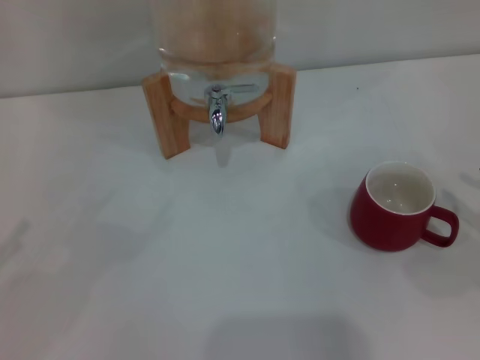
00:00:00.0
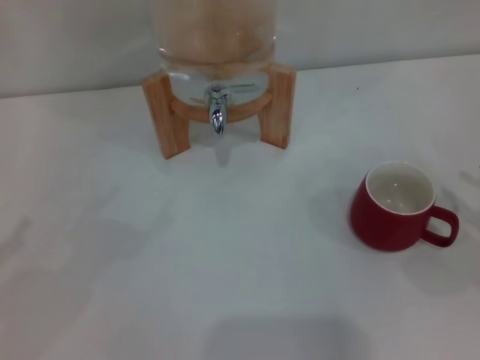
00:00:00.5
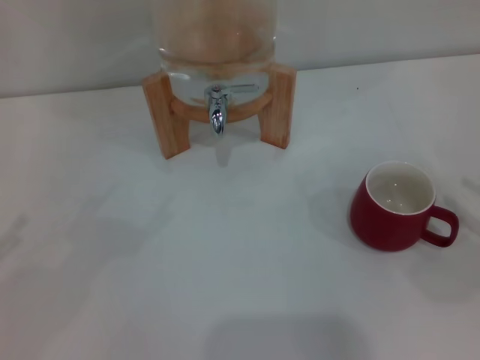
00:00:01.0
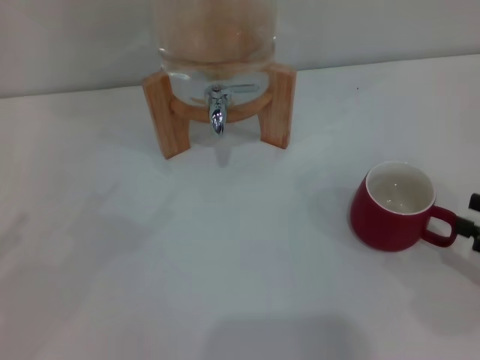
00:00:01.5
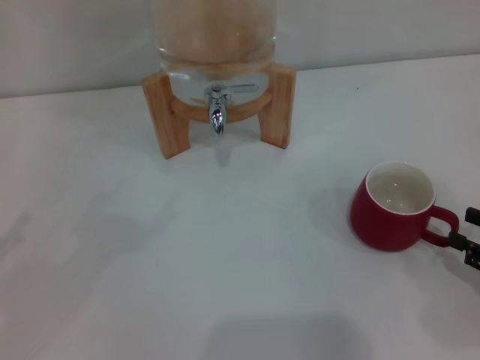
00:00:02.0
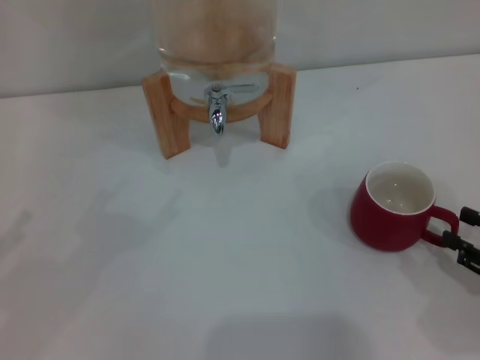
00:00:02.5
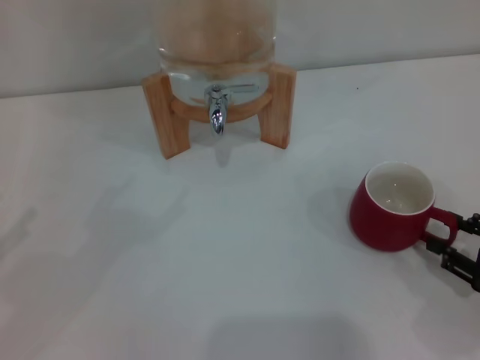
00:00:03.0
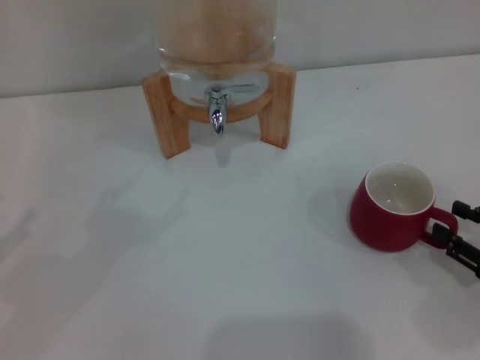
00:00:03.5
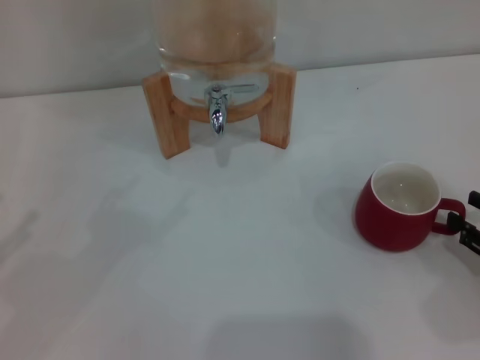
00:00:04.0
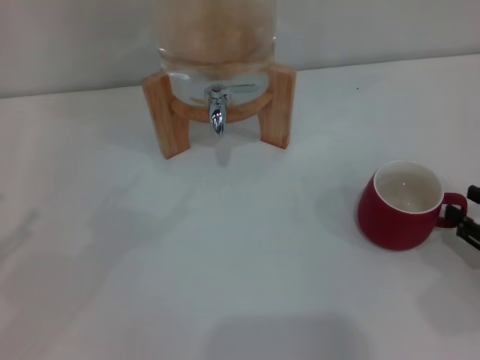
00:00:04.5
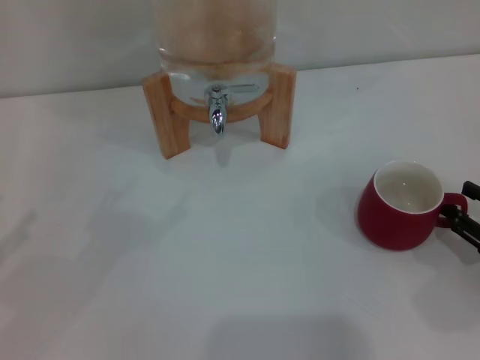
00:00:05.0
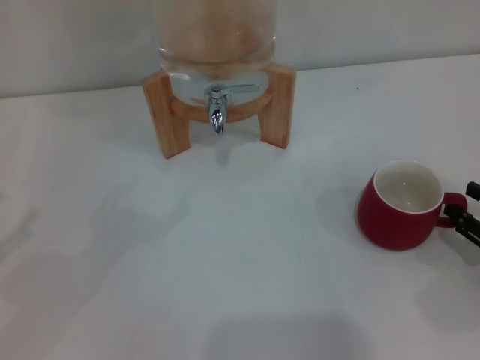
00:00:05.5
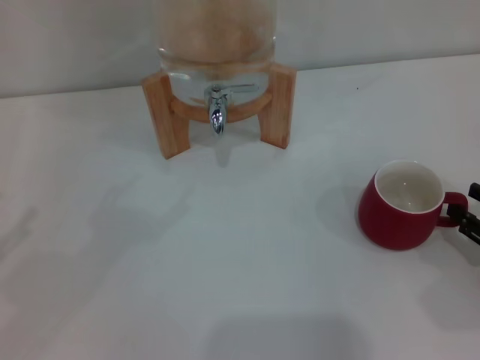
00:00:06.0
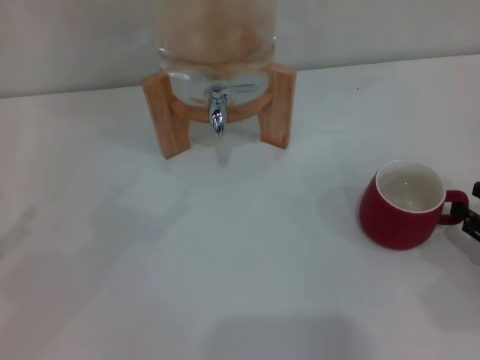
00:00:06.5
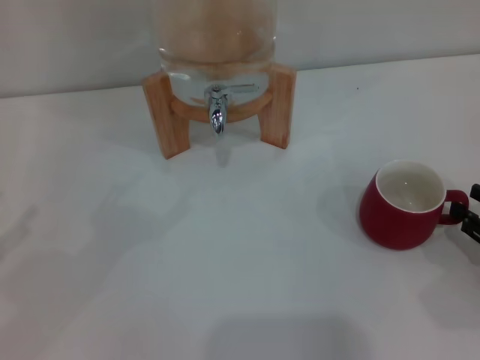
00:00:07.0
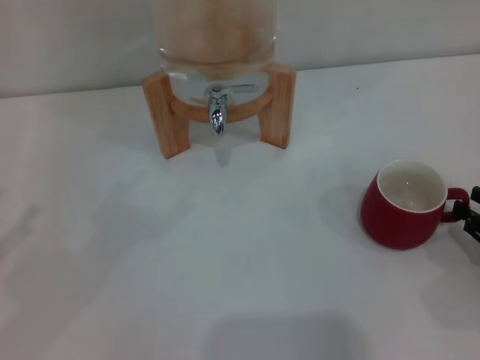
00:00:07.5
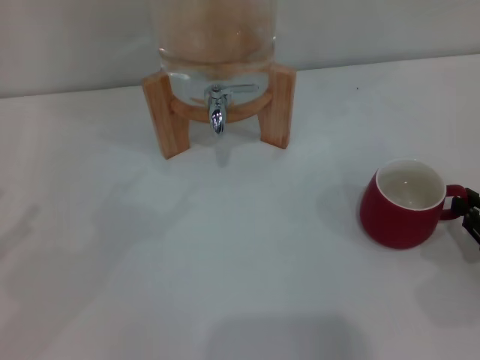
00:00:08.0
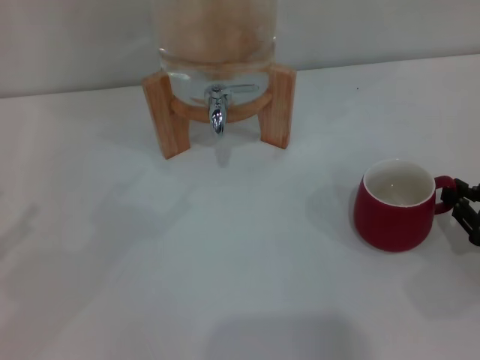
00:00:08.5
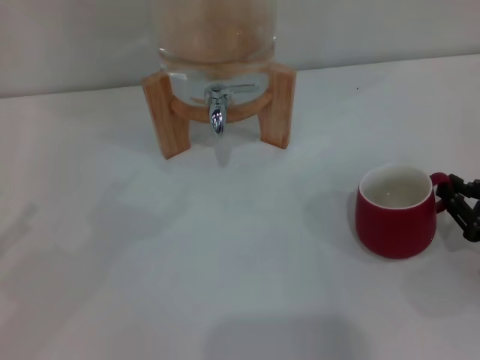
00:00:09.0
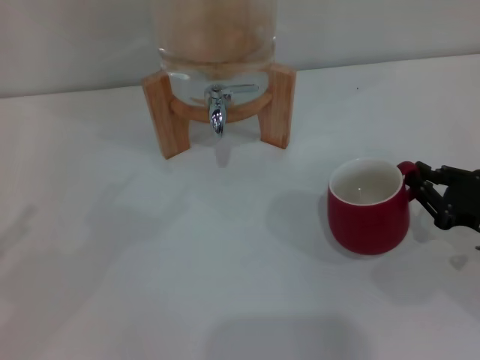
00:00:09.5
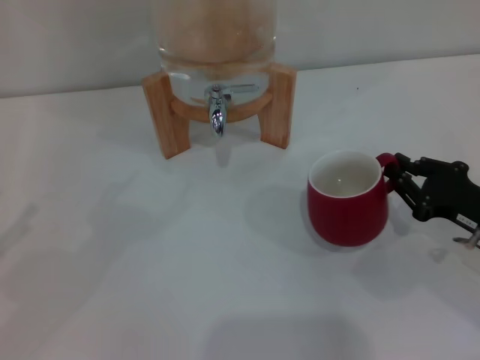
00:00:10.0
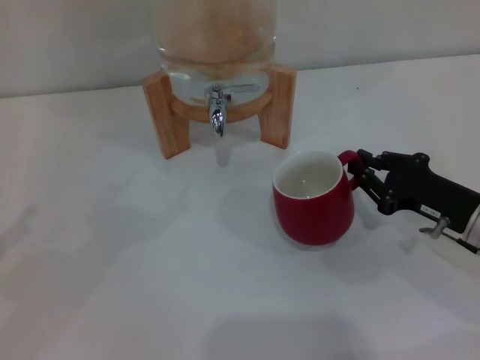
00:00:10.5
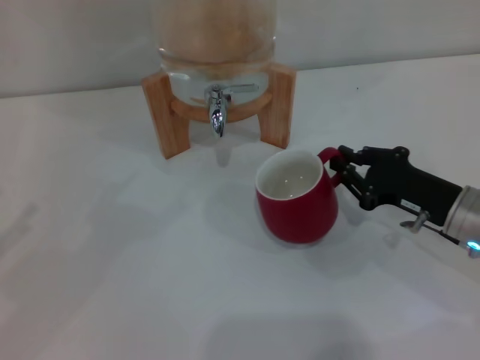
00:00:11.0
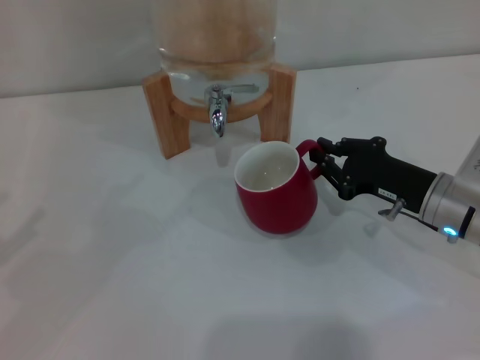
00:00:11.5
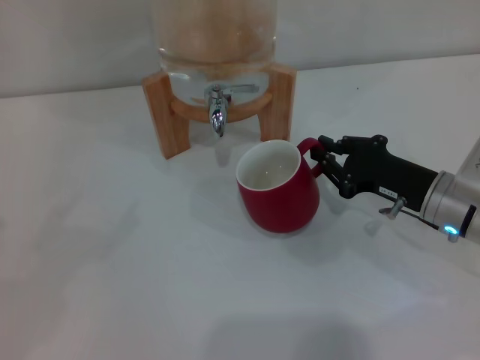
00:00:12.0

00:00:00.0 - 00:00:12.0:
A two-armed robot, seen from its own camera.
Task of the whole recording: the right gripper pick up the red cup and place it horizontally under the faucet, the left gripper turn on the faucet to fill the cup, and then turn off the faucet.
00:00:00.0 - 00:00:02.0: The right gripper is displaced downward by about 5 cm.
00:00:02.0 - 00:00:04.0: The grippers make only small movements.
00:00:04.0 - 00:00:06.0: Neither gripper changes place.
00:00:06.0 - 00:00:08.0: The right gripper closes its fingers.
00:00:08.0 - 00:00:10.0: The right gripper is displaced to the left and forward by some 10 cm.
00:00:10.0 - 00:00:12.0: The right gripper moves to the left and forward, approximately 10 cm.

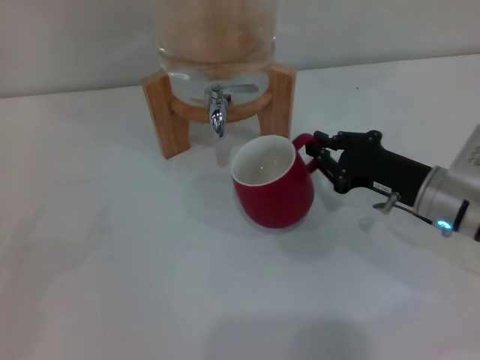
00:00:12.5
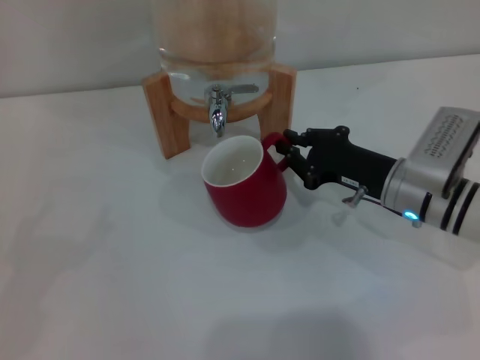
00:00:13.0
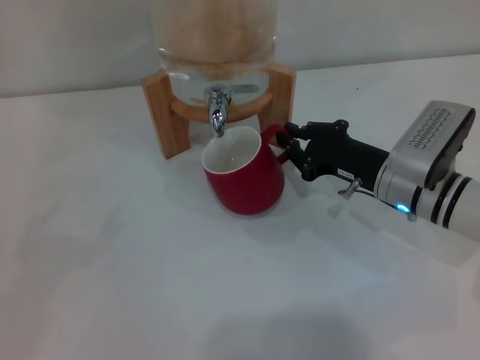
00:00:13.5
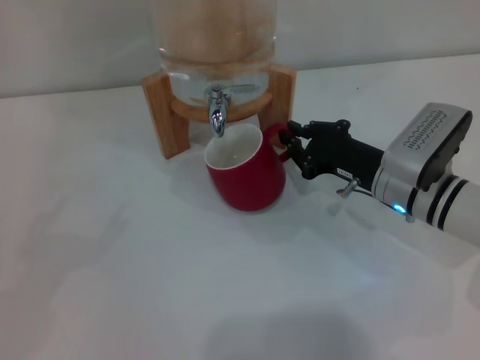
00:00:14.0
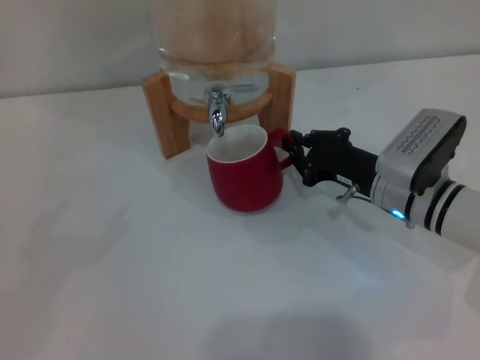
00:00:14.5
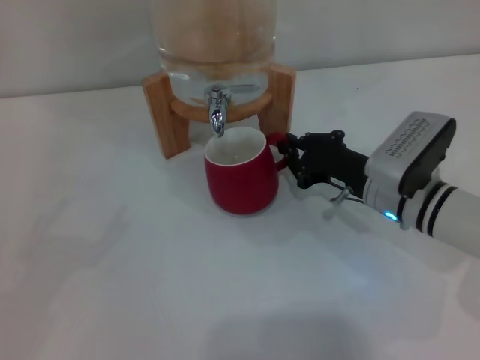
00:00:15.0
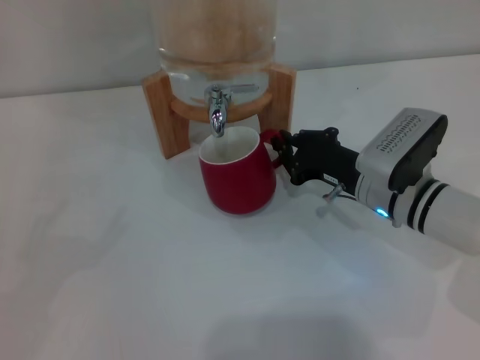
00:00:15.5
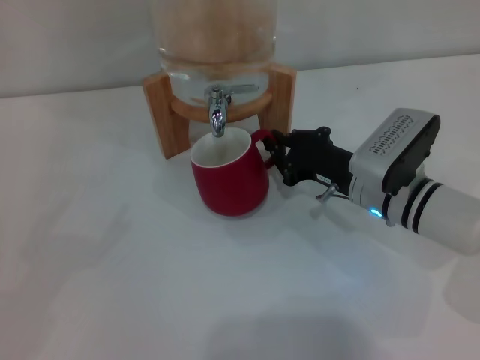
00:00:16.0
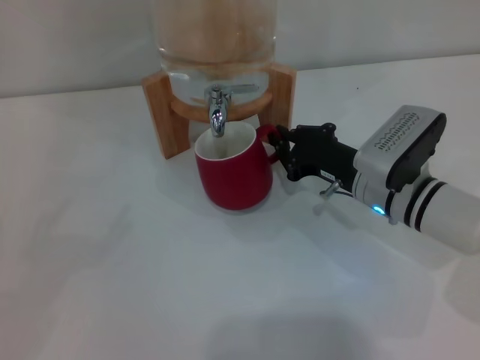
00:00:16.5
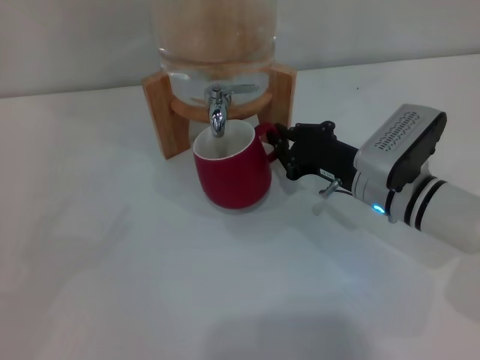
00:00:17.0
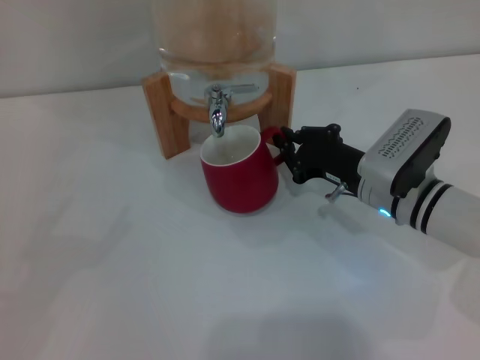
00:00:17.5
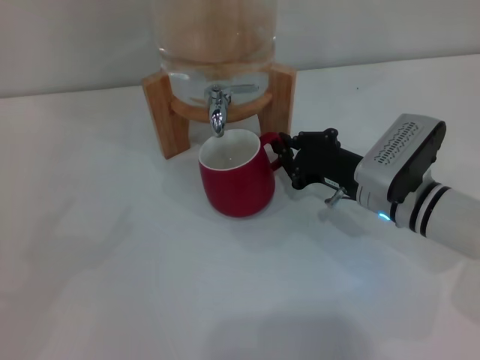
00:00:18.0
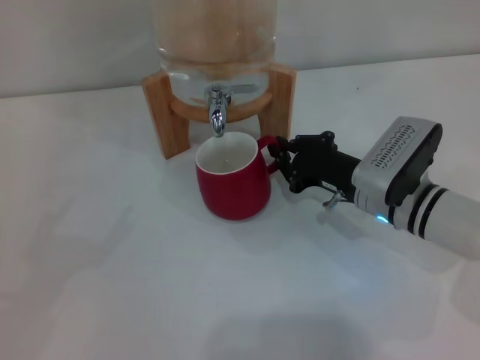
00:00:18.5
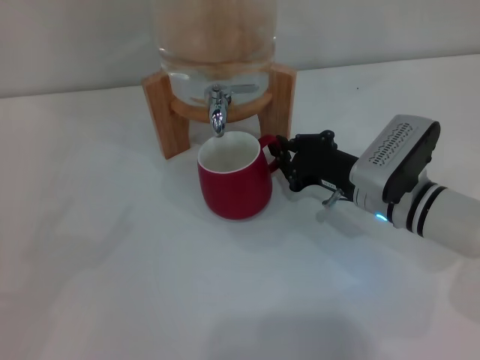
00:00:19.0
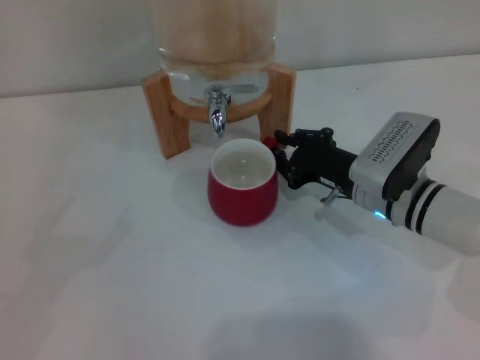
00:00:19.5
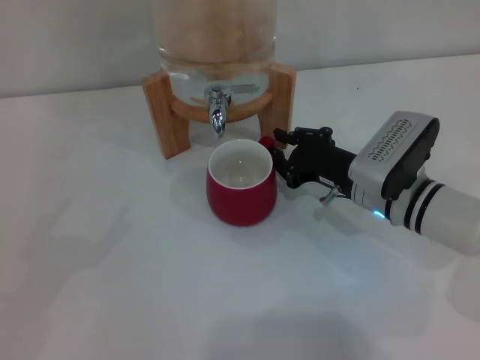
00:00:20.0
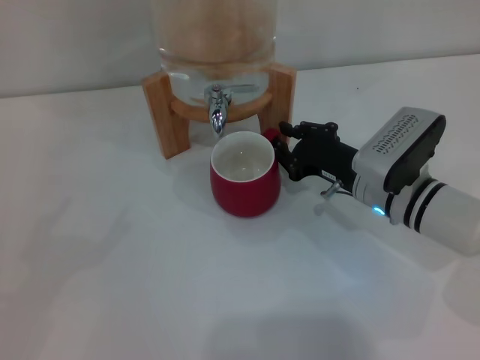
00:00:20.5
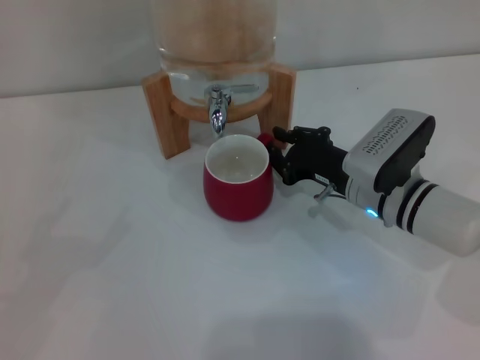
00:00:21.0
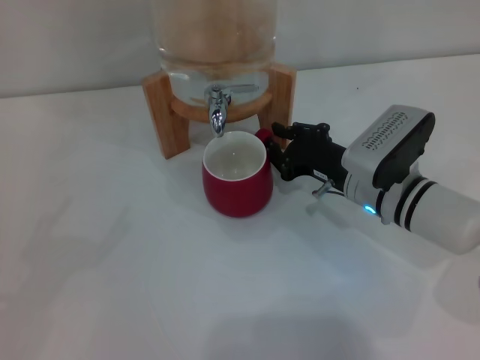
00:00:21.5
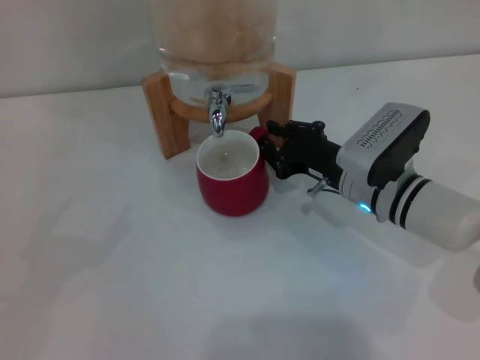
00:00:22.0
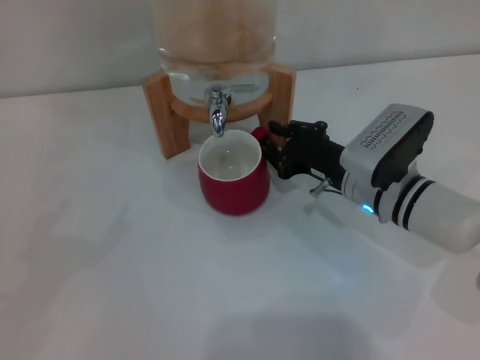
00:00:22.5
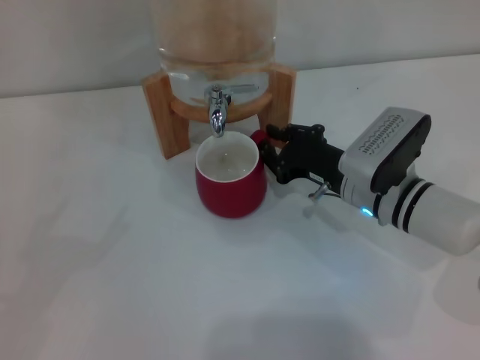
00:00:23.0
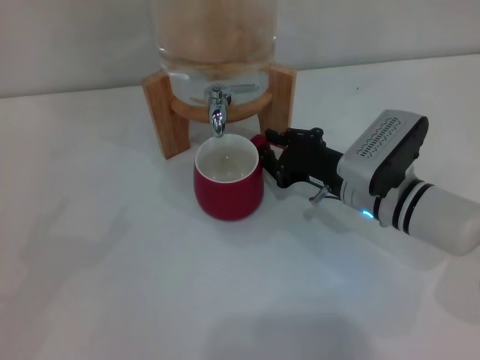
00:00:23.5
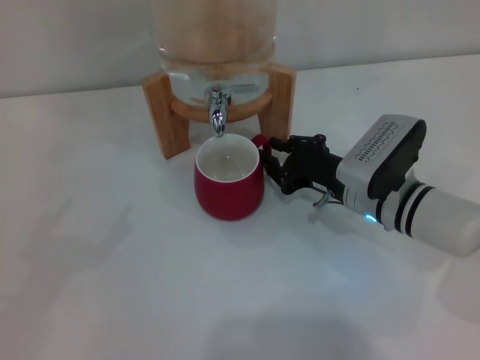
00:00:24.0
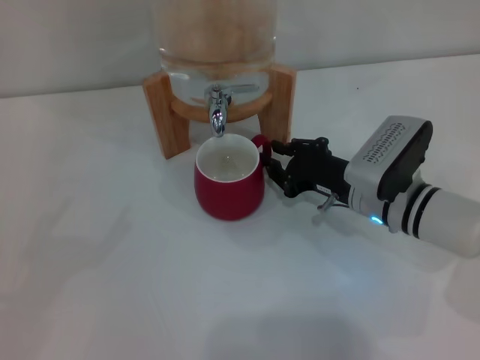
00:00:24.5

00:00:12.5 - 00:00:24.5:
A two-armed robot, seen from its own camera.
Task of the whole recording: the right gripper pick up the red cup and place it horizontally under the faucet, the left gripper turn on the faucet to fill the cup, and then turn off the faucet.
00:00:12.5 - 00:00:14.5: There are only small adjustments of the grippers.
00:00:14.5 - 00:00:18.5: The grippers make only small movements.
00:00:18.5 - 00:00:20.5: Neither gripper changes place.
00:00:20.5 - 00:00:24.5: The grippers stay close to where they were, moving slightly.

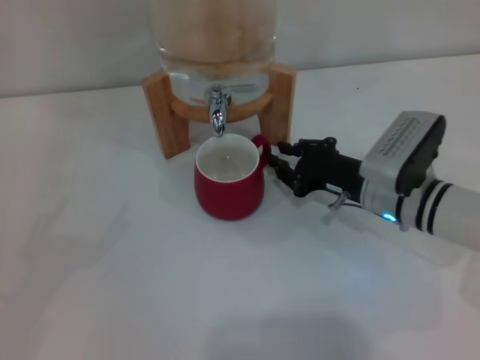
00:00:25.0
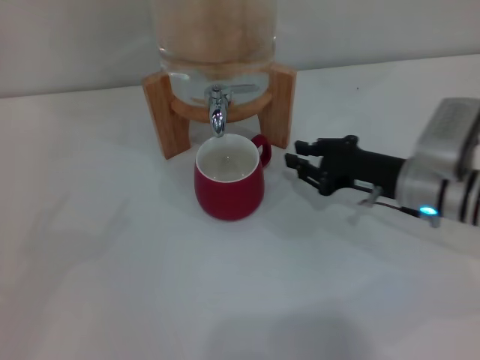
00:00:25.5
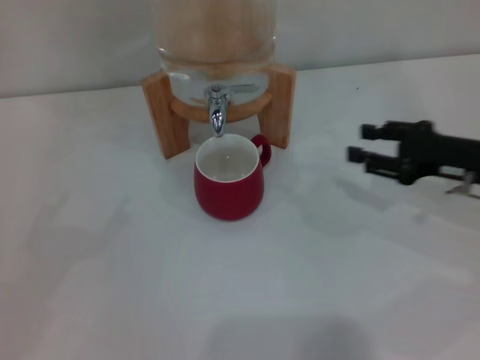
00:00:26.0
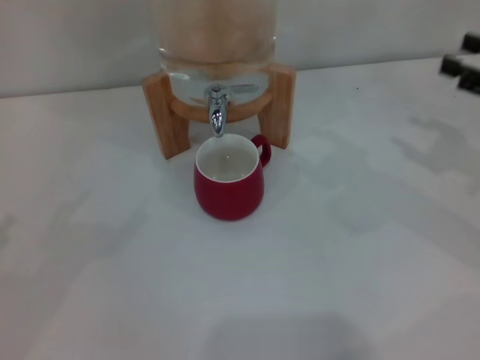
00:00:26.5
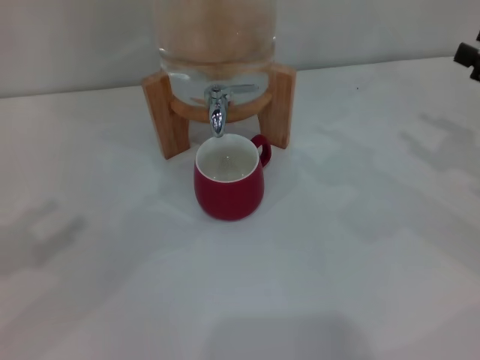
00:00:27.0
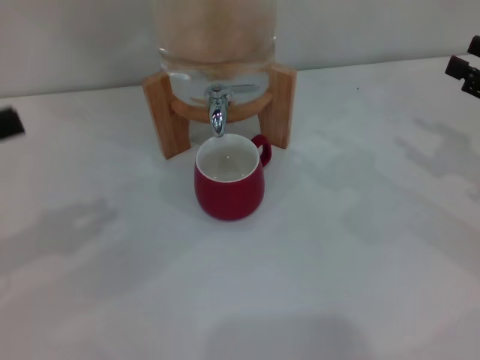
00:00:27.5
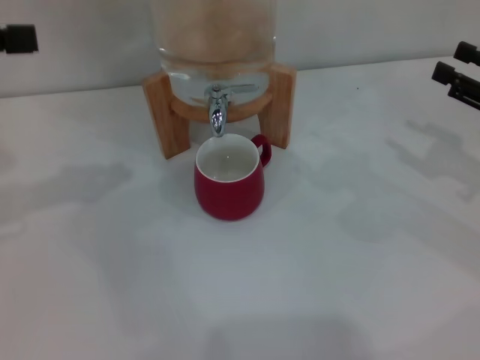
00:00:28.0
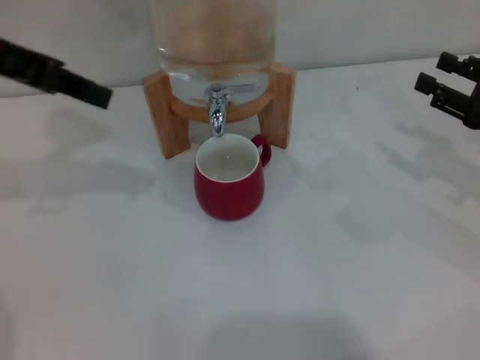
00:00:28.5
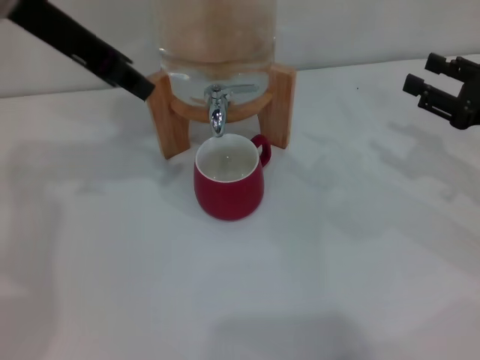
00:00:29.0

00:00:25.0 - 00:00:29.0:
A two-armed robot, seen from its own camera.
Task of the whole recording: the right gripper pick up the red cup and place it horizontally under the faucet, the left gripper turn on the faucet to fill the cup, and then turn off the faucet.
00:00:25.0 - 00:00:27.0: The left gripper moves forward, about 5 cm; the right gripper goes some 20 cm to the right and upward, and opens its fingers.
00:00:27.0 - 00:00:29.0: The left gripper goes about 30 cm to the right, upward and forward, and closes its fingers.
